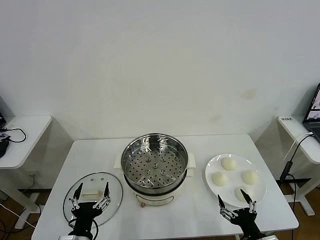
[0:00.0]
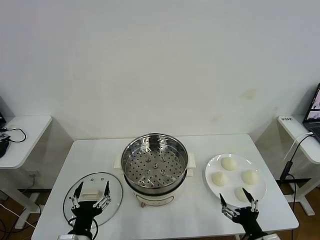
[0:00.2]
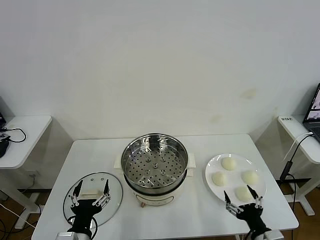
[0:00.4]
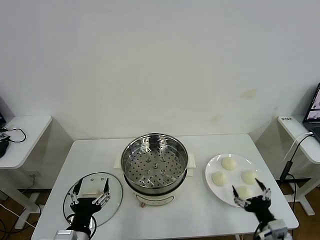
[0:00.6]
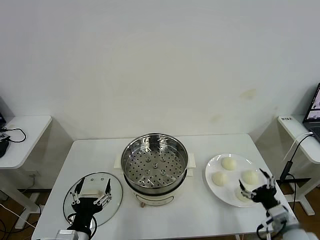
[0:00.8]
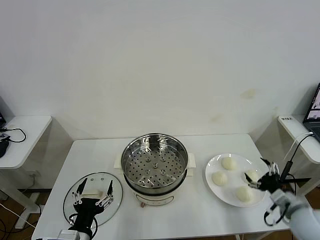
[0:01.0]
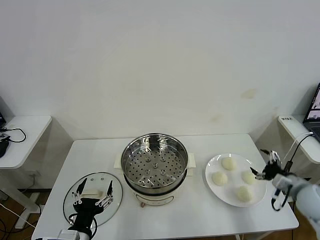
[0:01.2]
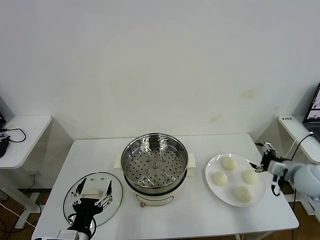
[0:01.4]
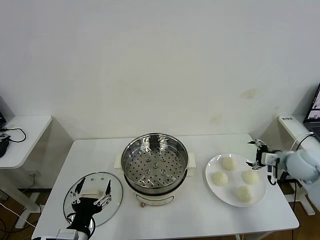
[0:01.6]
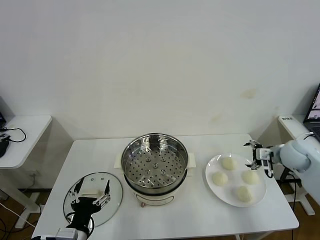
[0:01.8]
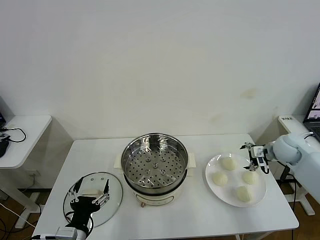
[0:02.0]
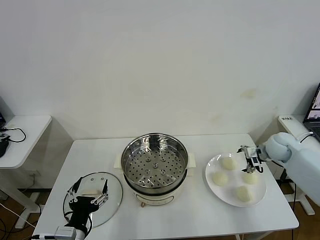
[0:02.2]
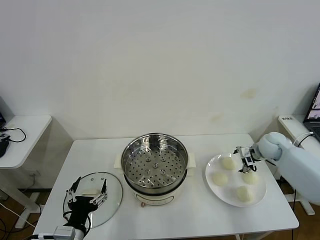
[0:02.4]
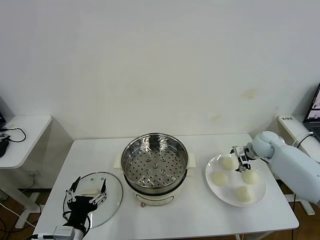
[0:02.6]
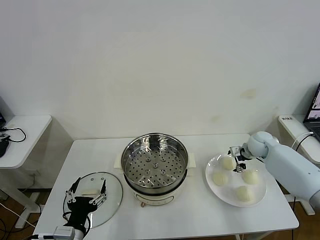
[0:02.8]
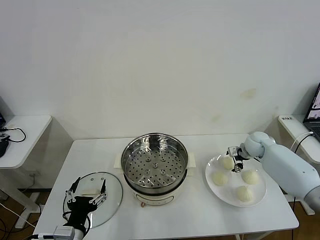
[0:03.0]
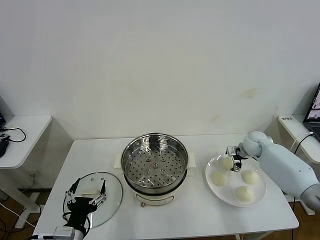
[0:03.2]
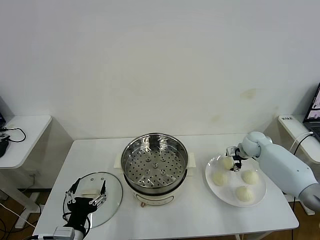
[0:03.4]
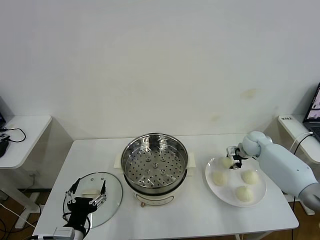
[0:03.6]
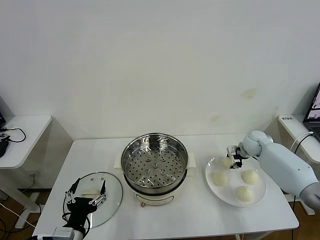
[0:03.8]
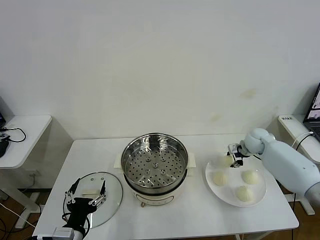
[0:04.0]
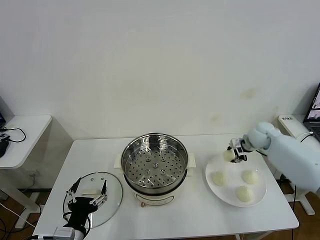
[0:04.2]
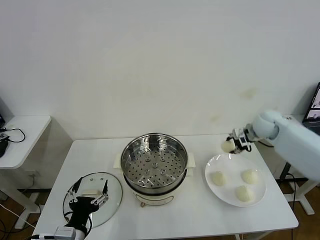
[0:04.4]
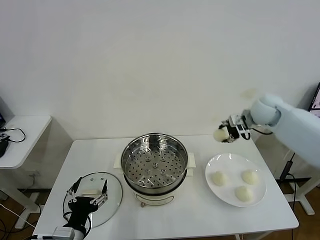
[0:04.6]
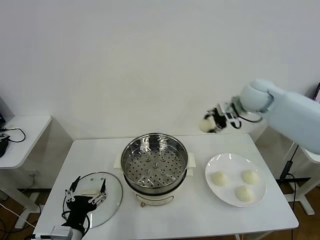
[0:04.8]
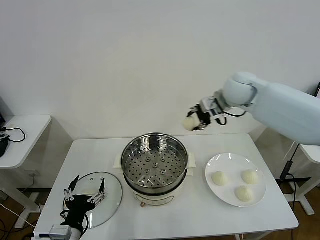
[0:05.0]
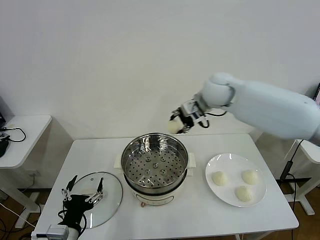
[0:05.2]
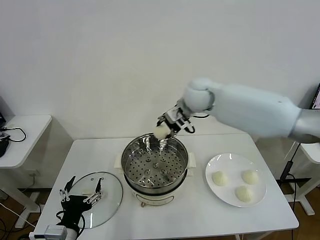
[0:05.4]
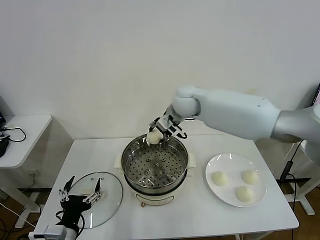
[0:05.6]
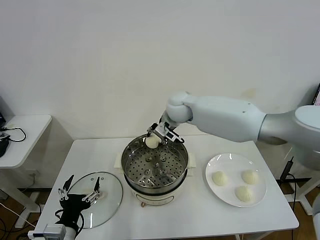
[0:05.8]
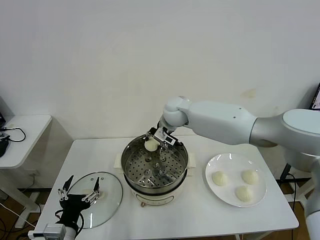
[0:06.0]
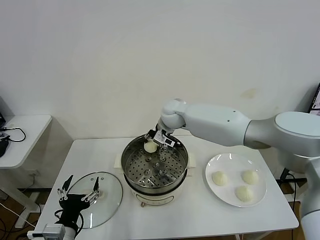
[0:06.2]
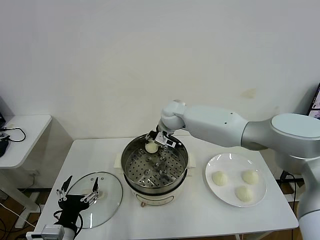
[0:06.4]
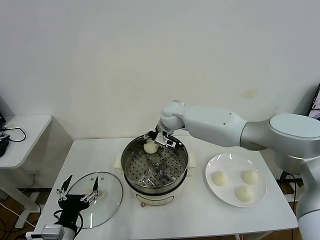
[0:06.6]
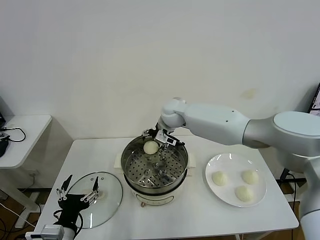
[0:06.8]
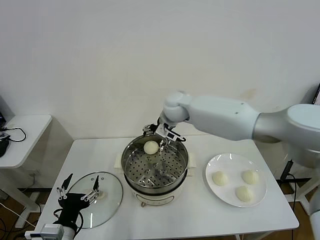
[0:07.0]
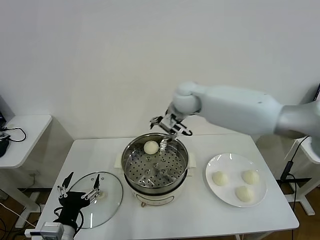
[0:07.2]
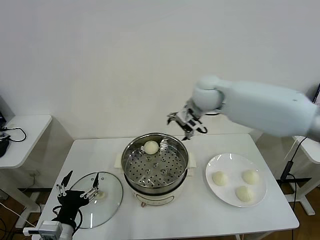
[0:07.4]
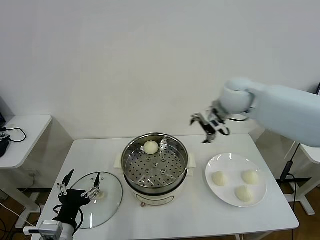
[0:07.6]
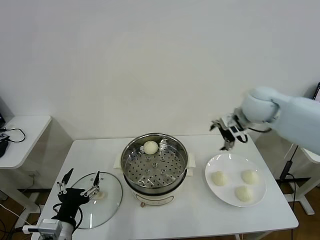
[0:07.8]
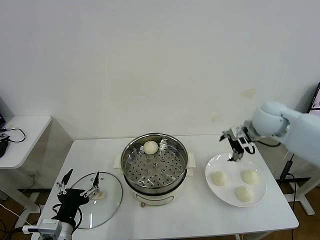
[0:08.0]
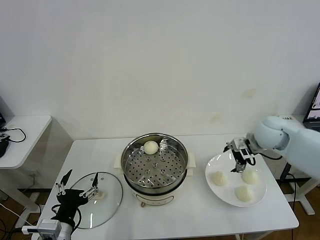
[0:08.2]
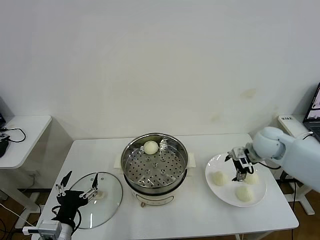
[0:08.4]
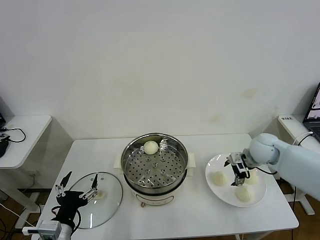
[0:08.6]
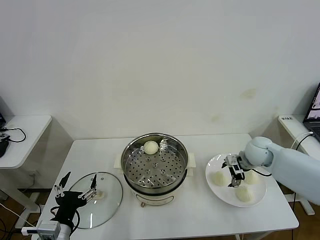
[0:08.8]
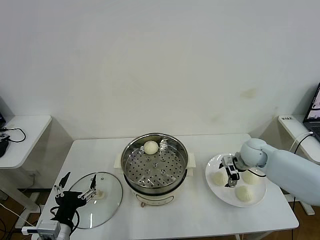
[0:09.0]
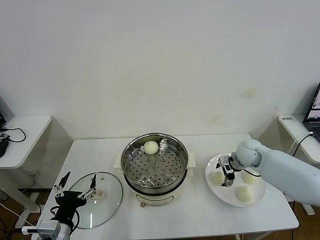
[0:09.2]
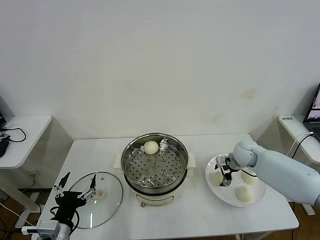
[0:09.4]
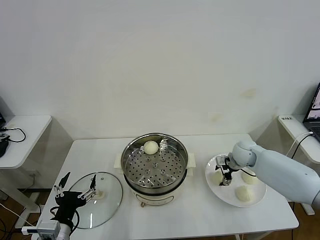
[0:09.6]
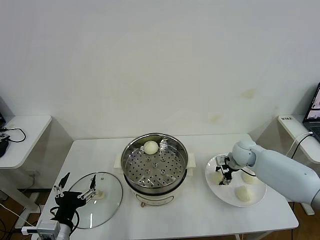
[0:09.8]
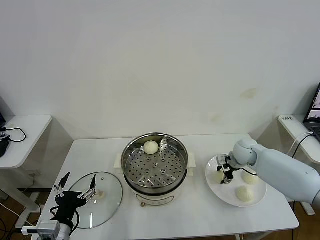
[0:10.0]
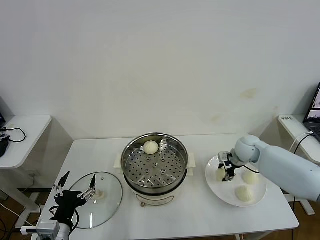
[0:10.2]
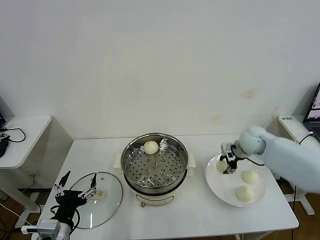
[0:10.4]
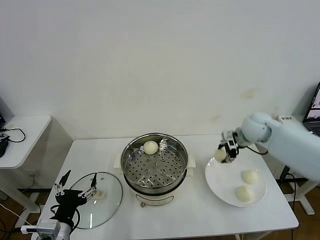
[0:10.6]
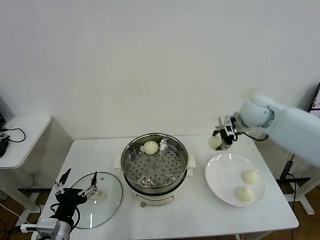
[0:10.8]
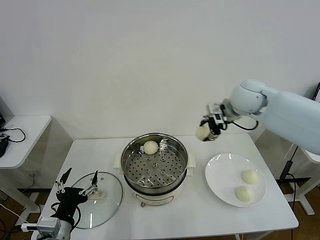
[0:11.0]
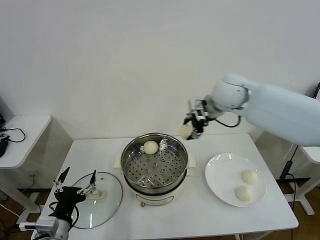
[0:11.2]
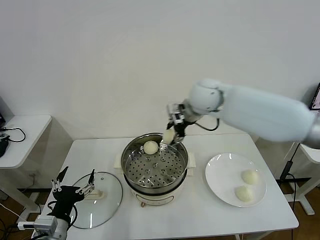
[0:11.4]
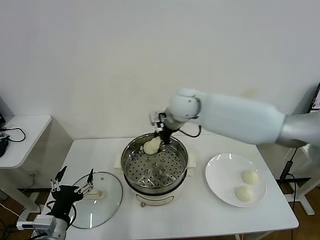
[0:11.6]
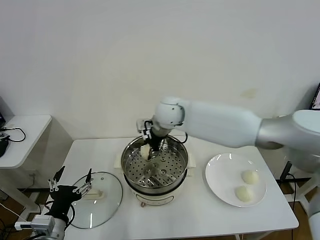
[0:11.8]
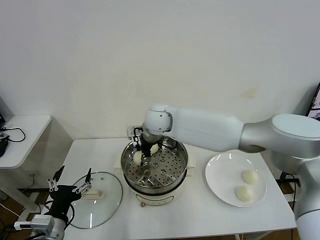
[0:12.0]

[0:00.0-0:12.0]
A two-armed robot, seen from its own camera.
Task of the whole recording: take steamed baozi put them in steamer then cover it.
Step, 0:00.0 to 0:03.4: Grasp the baozi in the plate with right gripper.
Step, 0:03.8 to 0:06.6: Place the baozi on the steamer with right gripper.
Step, 0:06.8 to 0:09.8: Grasp the baozi in the plate with right gripper.
0:01.6 to 0:03.0: The right gripper travels forward, downward and to the left by some 15 cm.
0:03.0 to 0:04.4: The right gripper is displaced upward by some 10 cm, and closes up.
0:04.4 to 0:06.0: The right gripper moves to the left, approximately 30 cm.
0:06.0 to 0:07.6: The right gripper is displaced to the right and upward by roughly 20 cm, and opens up.
0:07.6 to 0:09.0: The right gripper heads downward and to the right, covering roughly 25 cm.
0:09.0 to 0:10.4: The right gripper closes up.
0:10.4 to 0:12.0: The right gripper heads to the left, covering some 35 cm.

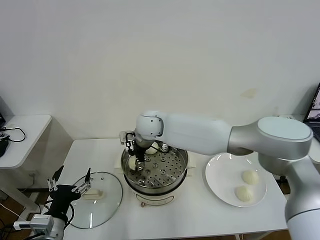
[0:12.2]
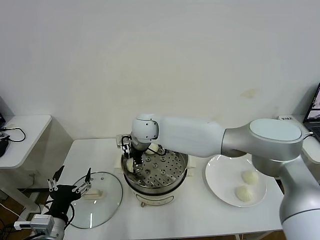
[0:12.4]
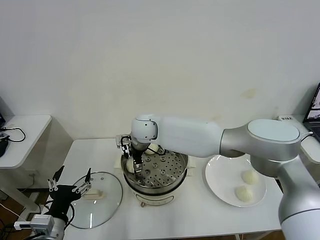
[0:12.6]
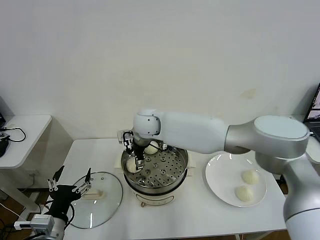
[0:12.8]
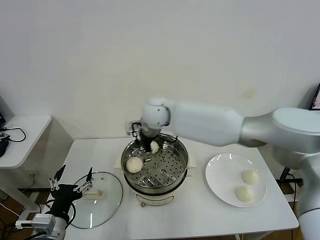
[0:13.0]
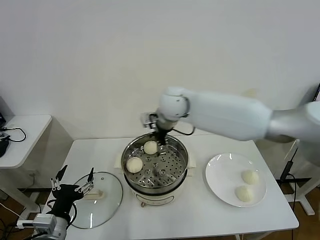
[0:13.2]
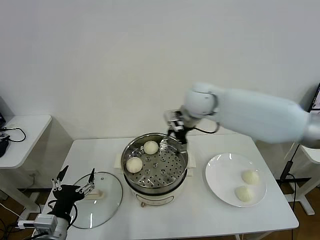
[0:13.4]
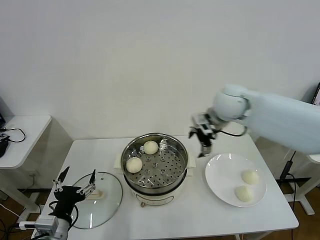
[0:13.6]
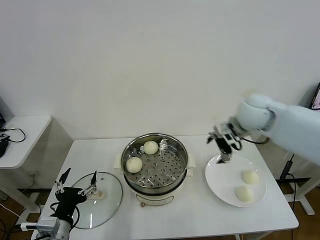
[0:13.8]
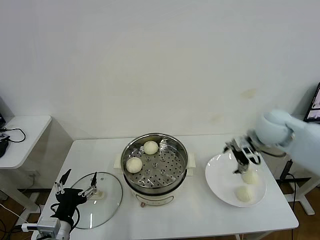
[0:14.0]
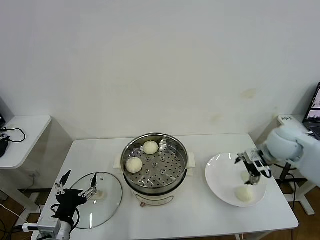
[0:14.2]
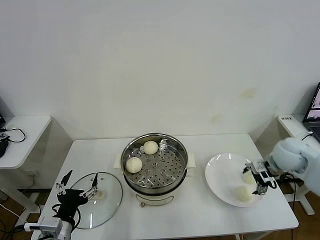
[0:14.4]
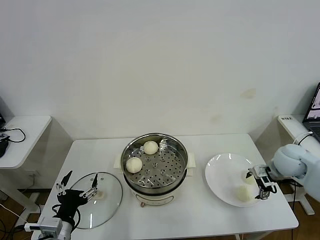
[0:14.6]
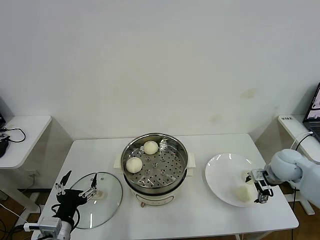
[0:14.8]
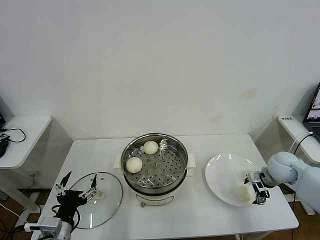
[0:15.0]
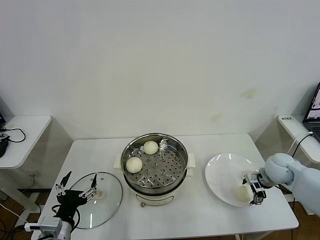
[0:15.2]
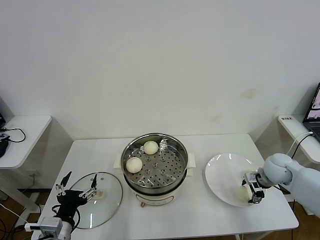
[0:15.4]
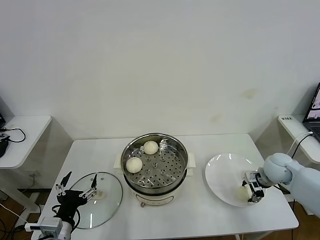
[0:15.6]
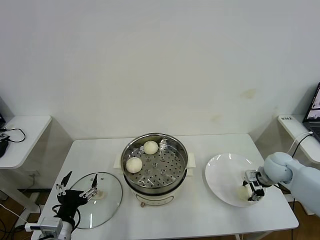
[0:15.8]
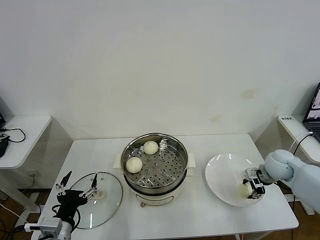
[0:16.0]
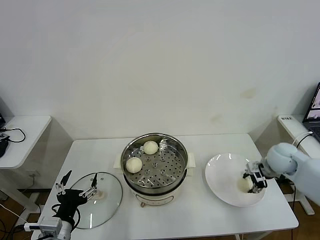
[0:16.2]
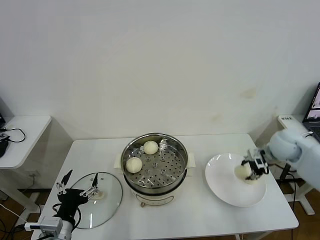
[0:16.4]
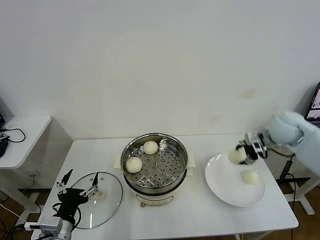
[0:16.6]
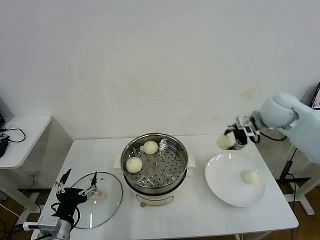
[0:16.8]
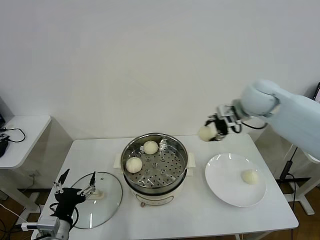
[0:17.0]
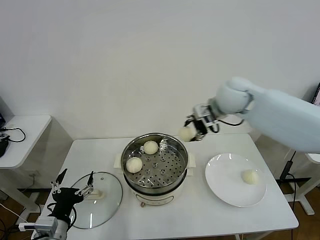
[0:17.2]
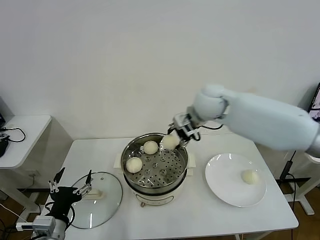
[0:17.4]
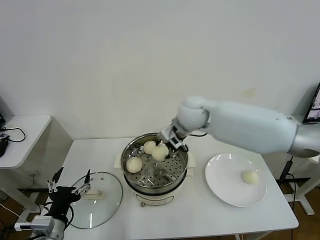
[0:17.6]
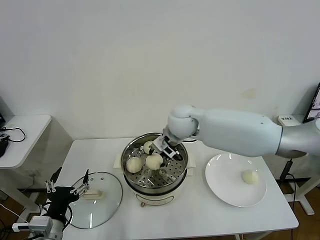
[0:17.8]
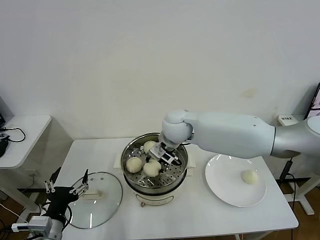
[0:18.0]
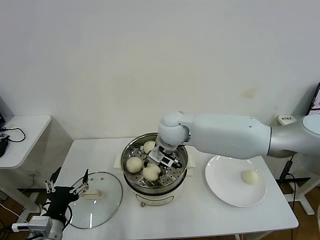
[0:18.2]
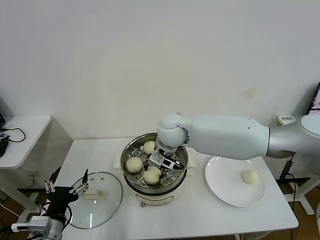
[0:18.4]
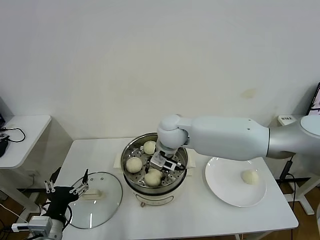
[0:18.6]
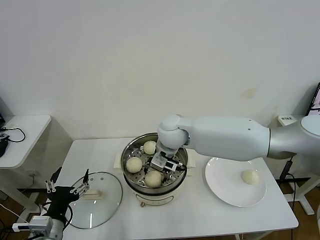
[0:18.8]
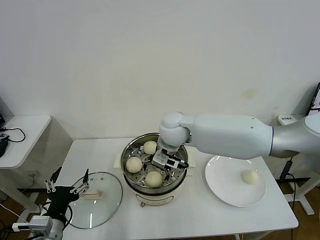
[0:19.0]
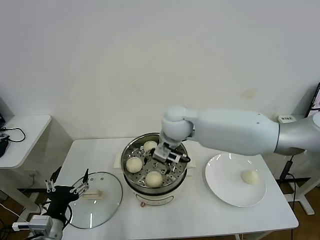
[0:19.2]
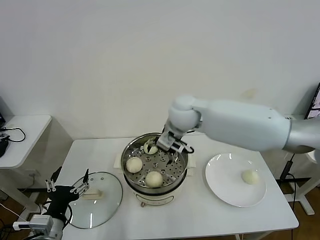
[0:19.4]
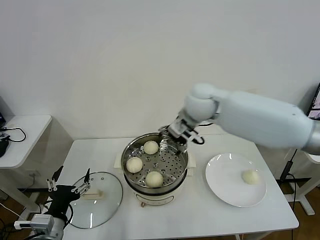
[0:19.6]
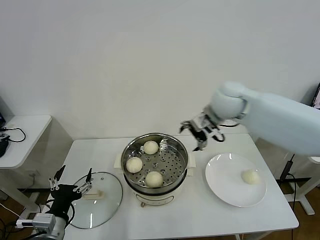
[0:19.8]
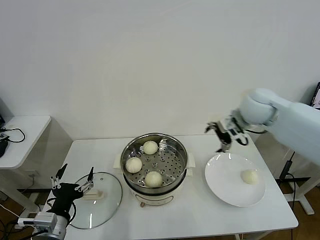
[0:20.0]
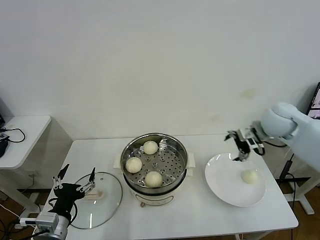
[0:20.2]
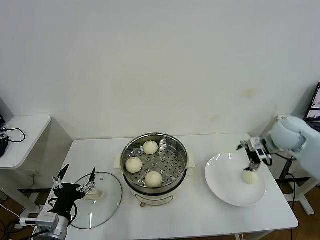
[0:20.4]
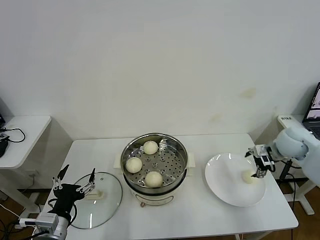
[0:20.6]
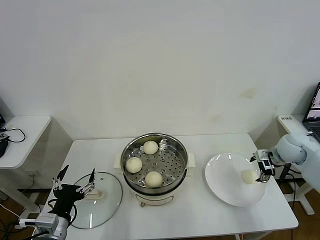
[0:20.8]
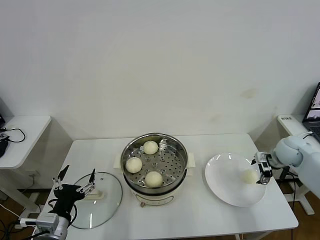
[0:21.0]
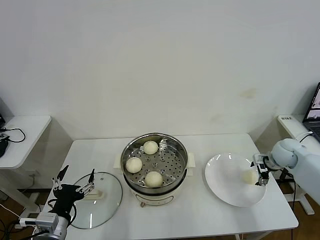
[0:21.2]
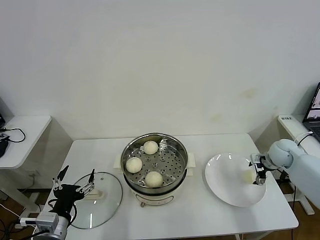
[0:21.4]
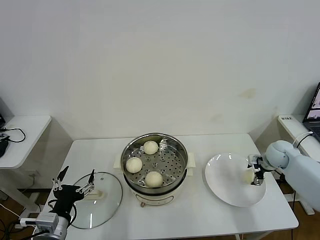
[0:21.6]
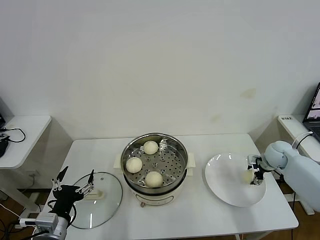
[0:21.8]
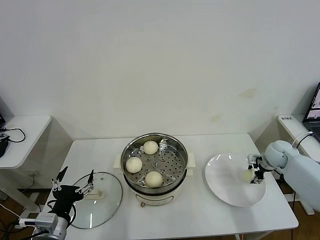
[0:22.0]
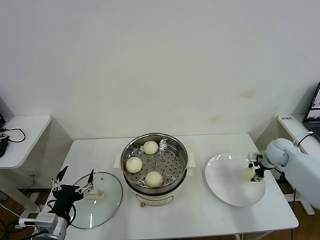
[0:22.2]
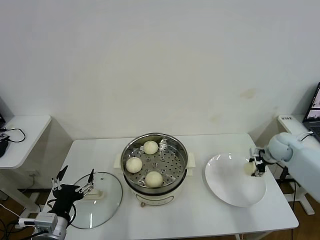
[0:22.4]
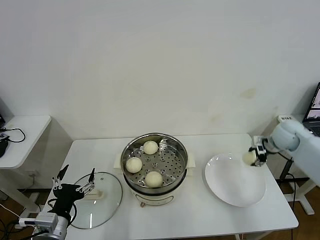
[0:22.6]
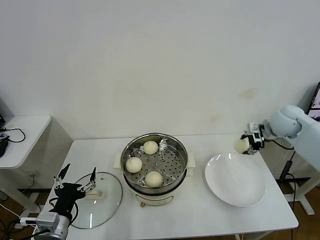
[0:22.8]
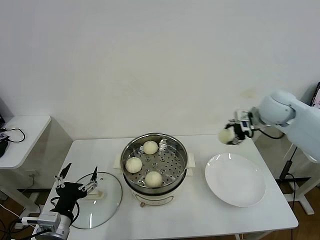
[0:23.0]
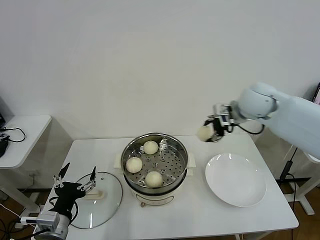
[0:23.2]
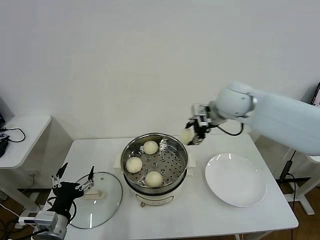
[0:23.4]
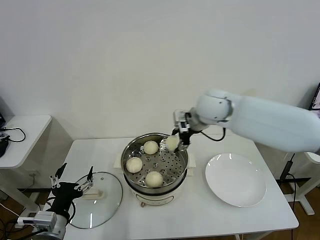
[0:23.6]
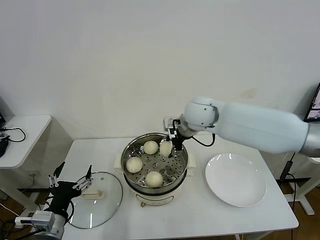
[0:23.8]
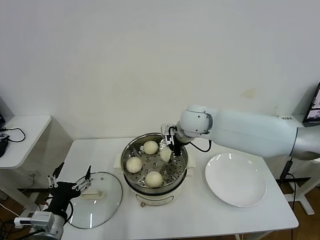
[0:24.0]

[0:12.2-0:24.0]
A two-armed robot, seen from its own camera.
Task of the whole recording: take steamed baozi put them in steamer then cover it.
Step, 0:12.8 to 0:15.8: Grasp the baozi in the plate with right gripper.
Step, 0:16.0 to 0:18.8: Place the baozi on the steamer with right gripper.
Step, 0:19.2 to 0:22.0: Grasp the baozi in the plate with right gripper.
0:12.2 to 0:13.6: The right gripper is displaced to the right and upward by about 25 cm, and opens.
0:13.6 to 0:15.2: The right gripper shifts approximately 30 cm to the right and downward.
0:15.2 to 0:16.6: The right gripper heads upward, covering some 15 cm, and closes up.
0:16.6 to 0:18.2: The right gripper heads to the left, covering about 35 cm.
0:18.2 to 0:19.6: The right gripper is displaced upward and to the right by roughly 10 cm, and opens up.
0:19.6 to 0:21.0: The right gripper goes some 40 cm to the right and downward.
0:21.0 to 0:22.6: The right gripper travels downward and back again, approximately 5 cm each way, and closes.
0:22.6 to 0:24.0: The right gripper shifts about 35 cm to the left.
